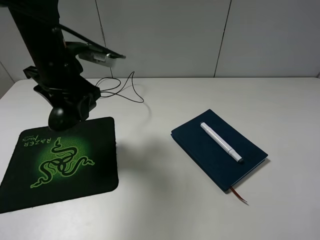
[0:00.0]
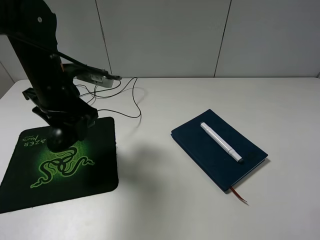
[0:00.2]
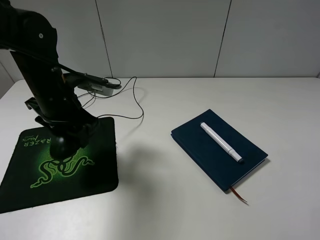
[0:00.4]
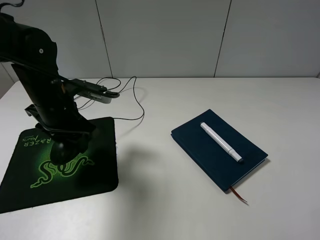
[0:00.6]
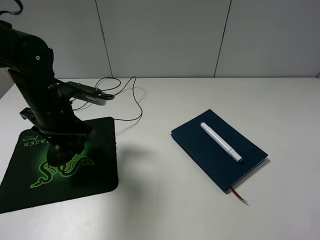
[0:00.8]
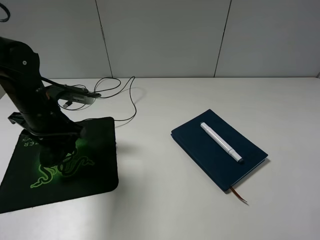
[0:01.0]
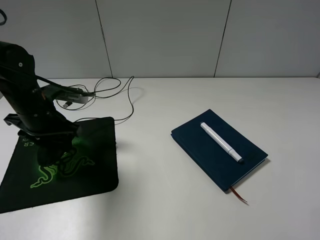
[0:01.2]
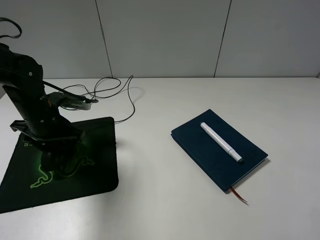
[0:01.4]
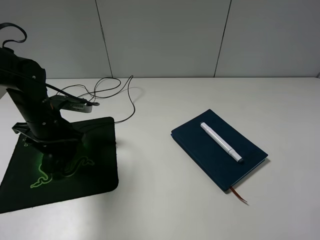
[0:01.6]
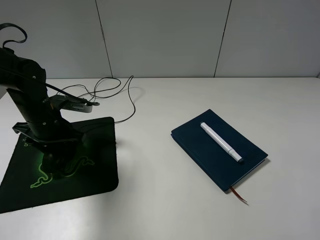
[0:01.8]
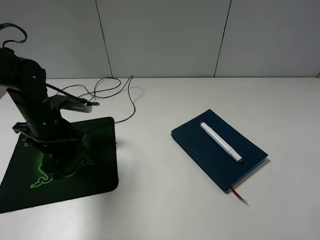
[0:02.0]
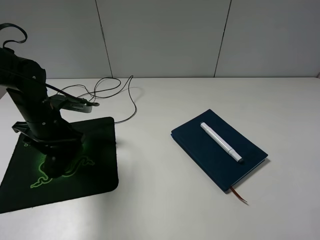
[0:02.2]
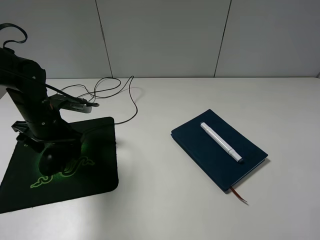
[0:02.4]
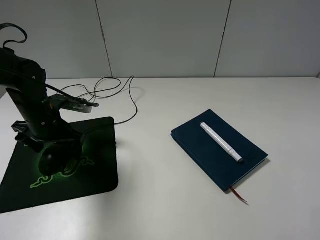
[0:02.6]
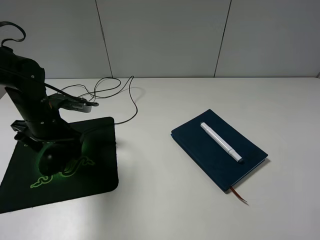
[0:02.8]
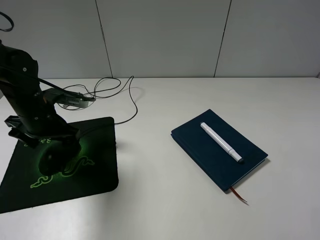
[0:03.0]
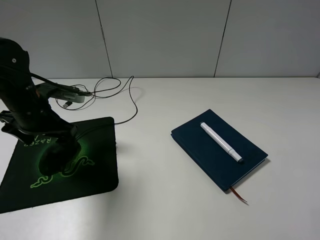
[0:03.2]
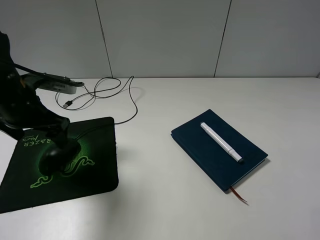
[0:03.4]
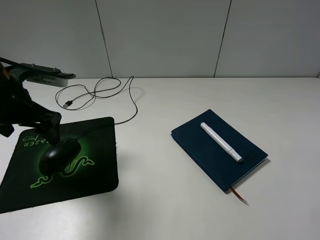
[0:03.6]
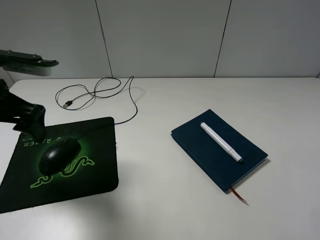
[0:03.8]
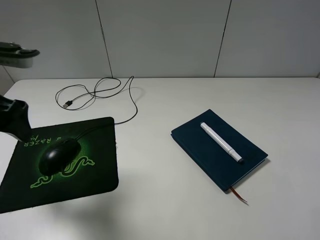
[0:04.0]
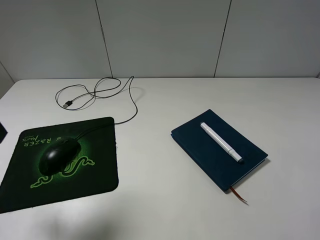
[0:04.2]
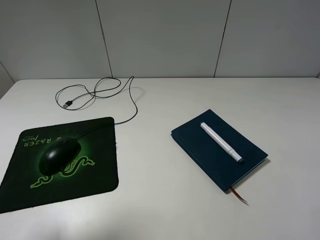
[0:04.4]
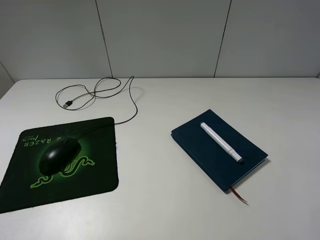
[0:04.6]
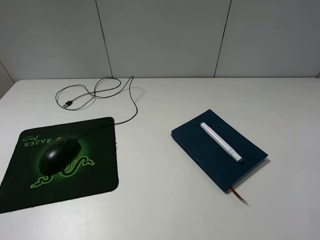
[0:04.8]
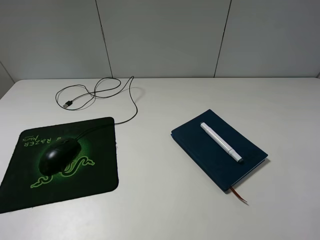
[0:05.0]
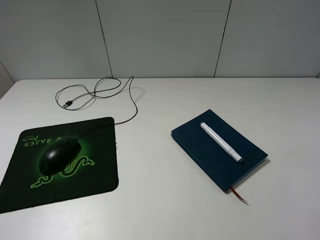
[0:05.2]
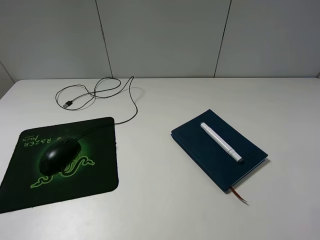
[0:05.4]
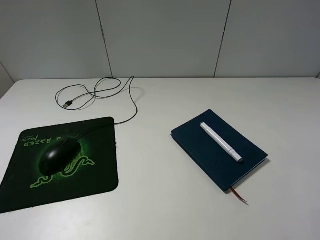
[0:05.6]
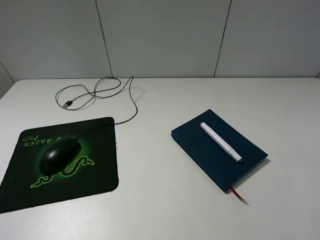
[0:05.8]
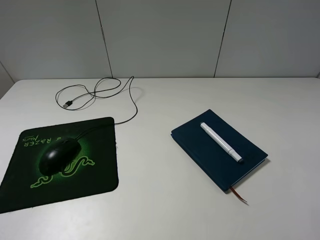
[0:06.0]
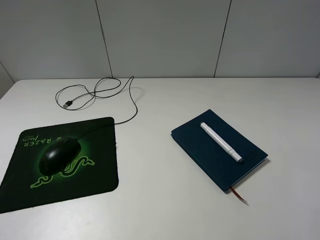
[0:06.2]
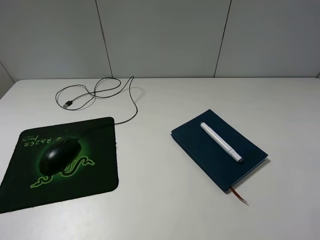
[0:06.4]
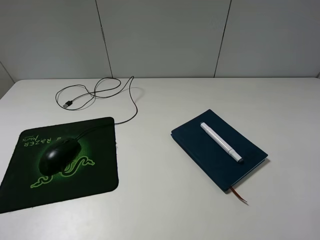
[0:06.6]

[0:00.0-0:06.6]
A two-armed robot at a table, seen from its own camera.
Step, 0:00.0 to 0:02.8: Place the mouse on the mouse pad with the left gripper.
0:00.0 to 0:01.6: The left gripper moves downward and to the left, roughly 15 cm.
0:01.6 to 0:03.2: The left gripper opens its fingers.
0:03.2 to 0:05.0: The left gripper moves backward and upward, roughly 30 cm.
